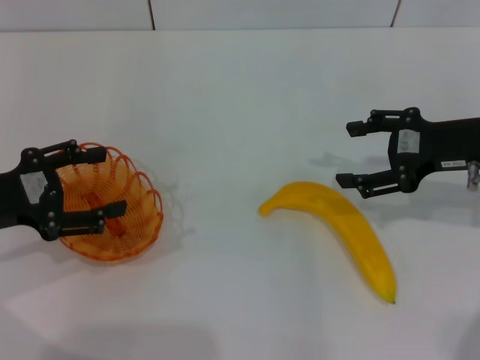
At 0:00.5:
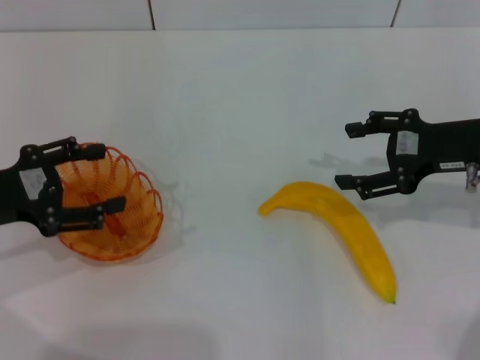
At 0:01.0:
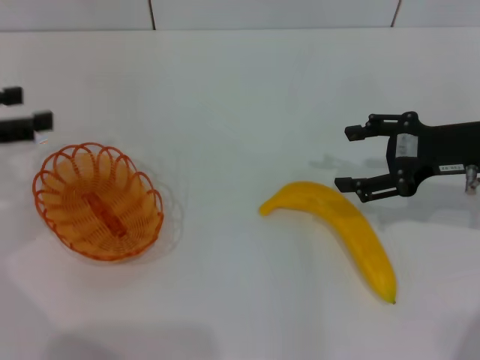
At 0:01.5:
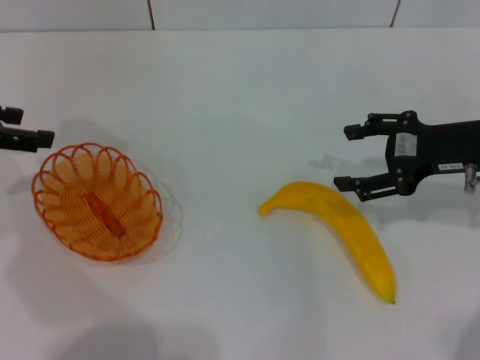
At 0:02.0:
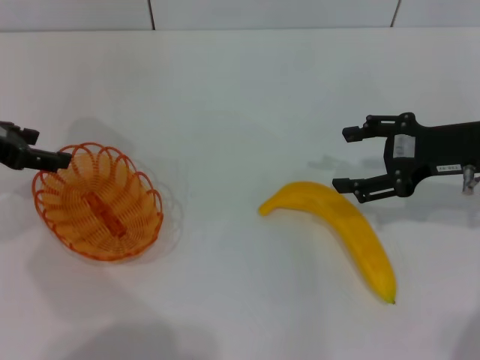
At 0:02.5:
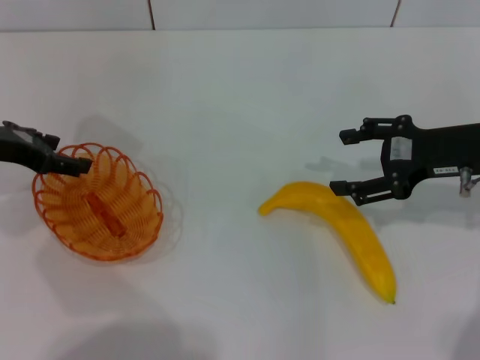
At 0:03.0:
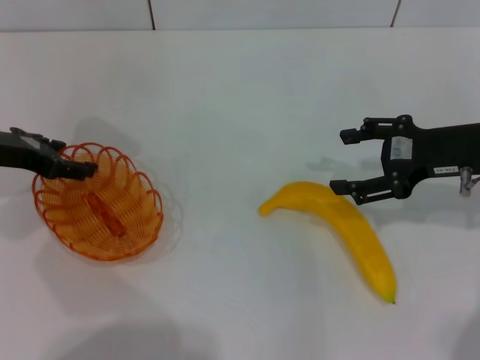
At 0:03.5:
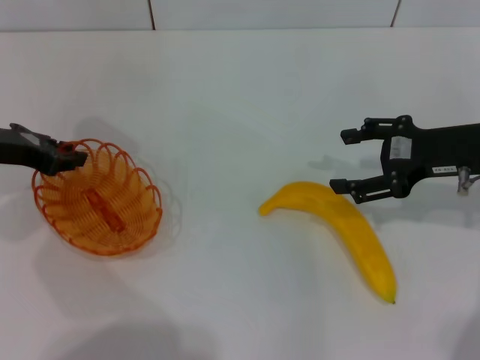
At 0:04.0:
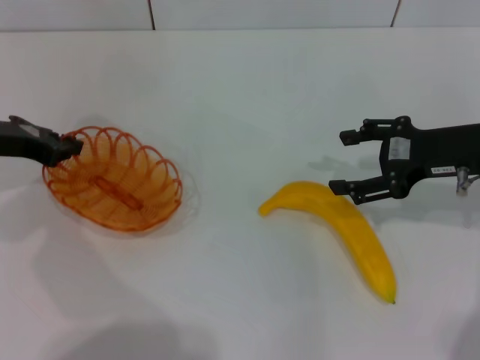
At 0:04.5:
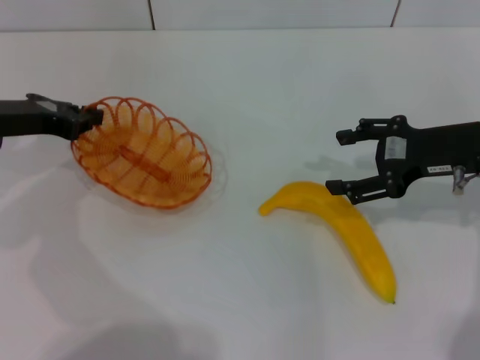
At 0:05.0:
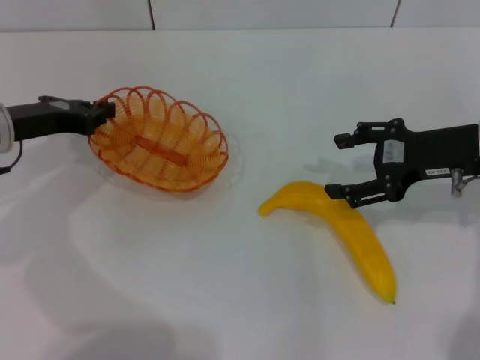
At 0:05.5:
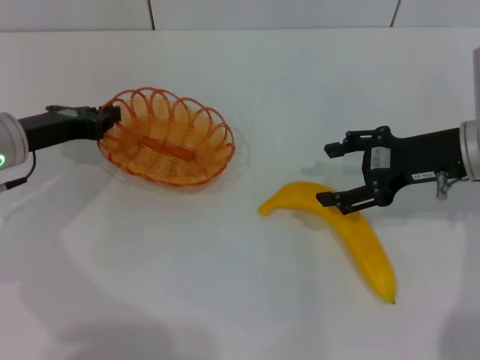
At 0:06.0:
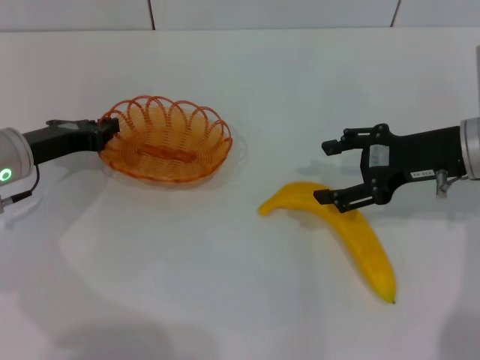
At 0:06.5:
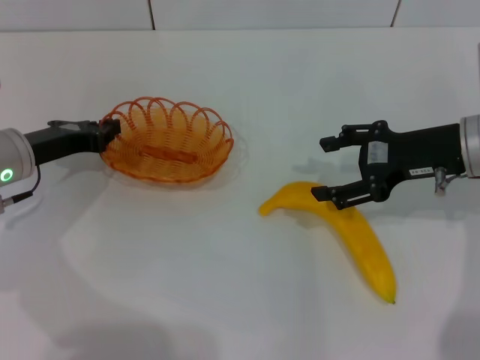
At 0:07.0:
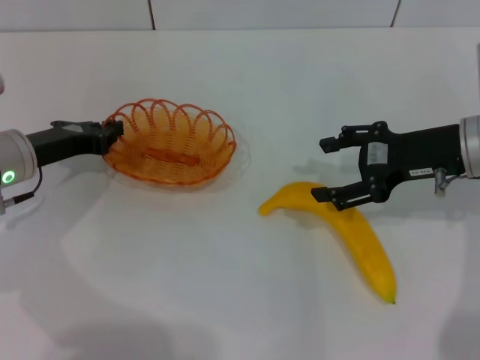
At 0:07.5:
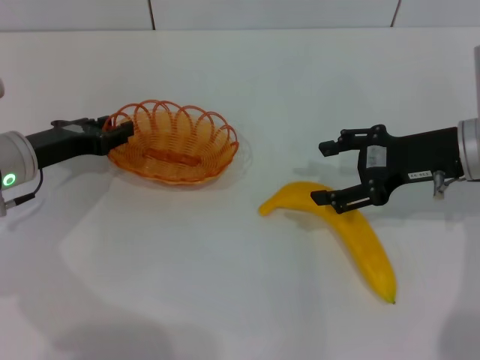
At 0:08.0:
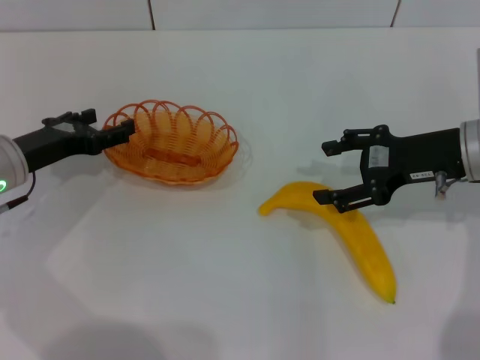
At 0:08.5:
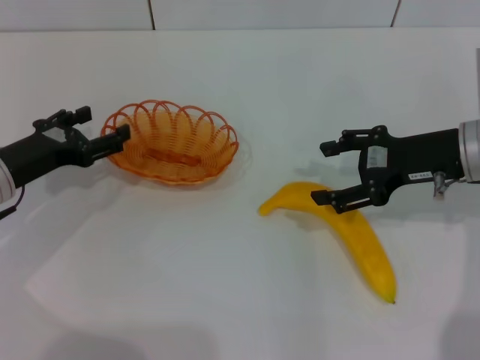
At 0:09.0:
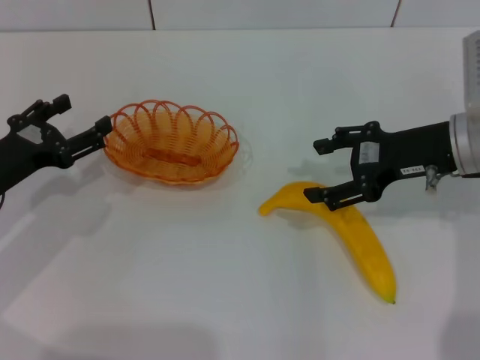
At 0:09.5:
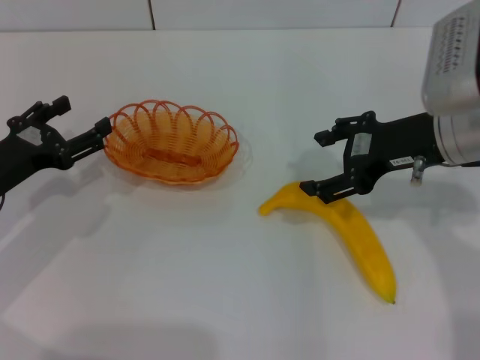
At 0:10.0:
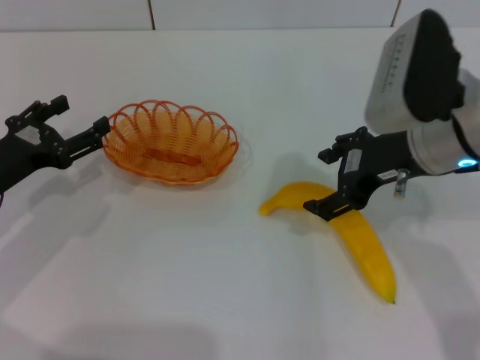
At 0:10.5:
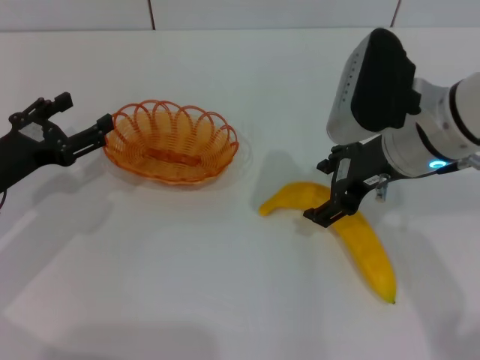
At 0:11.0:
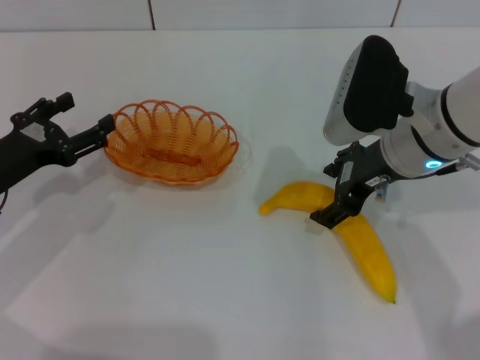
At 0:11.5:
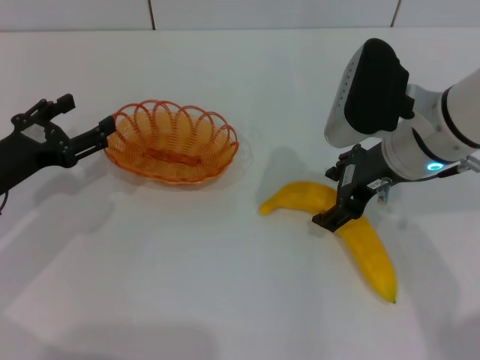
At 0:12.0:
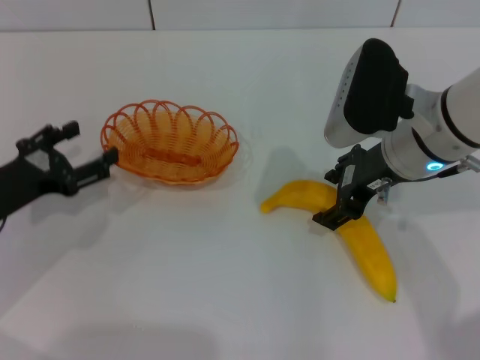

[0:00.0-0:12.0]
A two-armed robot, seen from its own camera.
Step, 0:00.0 to 0:04.0: Pick up the basket with the left gripper.
Step, 0:04.5 to 0:08.0: Place the basket in the center of view with the left gripper.
0:00.0 to 0:02.0: The left gripper is displaced forward by approximately 10 cm.
0:02.0 to 0:04.0: The left gripper closes up.
0:04.0 to 0:06.0: The left gripper moves downward, approximately 5 cm.
0:06.0 to 0:08.0: The left gripper opens its fingers.
0:08.0 to 0:10.0: The left gripper shifts by approximately 5 cm. The right gripper travels to the left by some 10 cm.
0:10.0 to 0:12.0: The grippers make only small movements.

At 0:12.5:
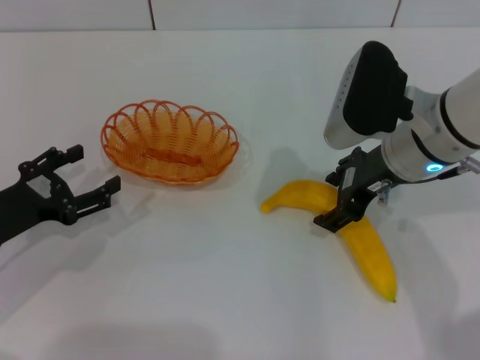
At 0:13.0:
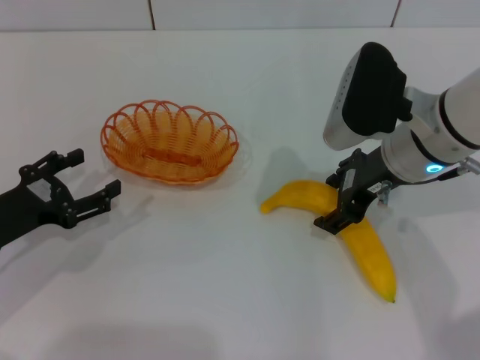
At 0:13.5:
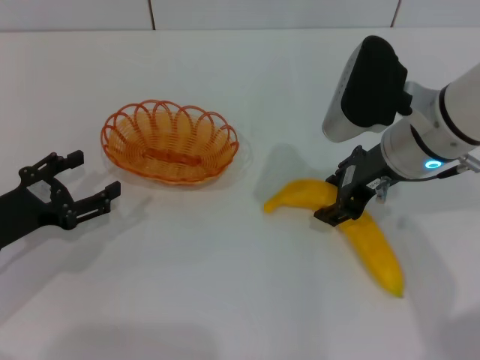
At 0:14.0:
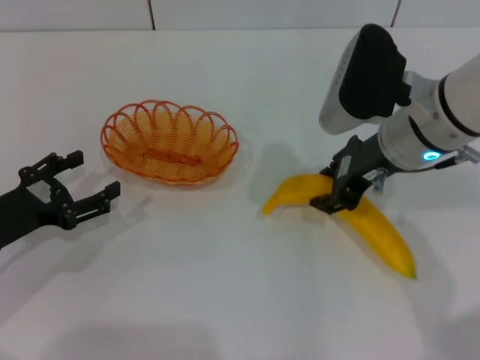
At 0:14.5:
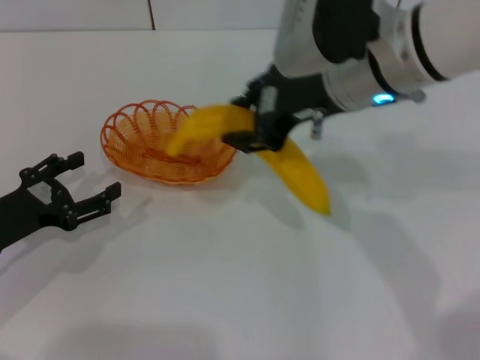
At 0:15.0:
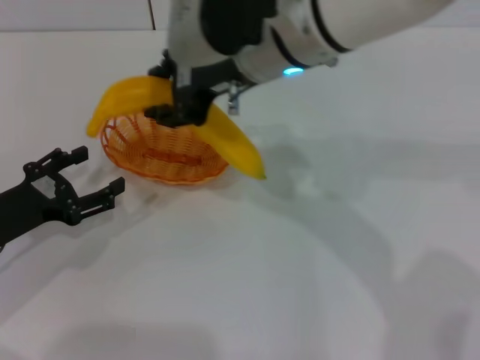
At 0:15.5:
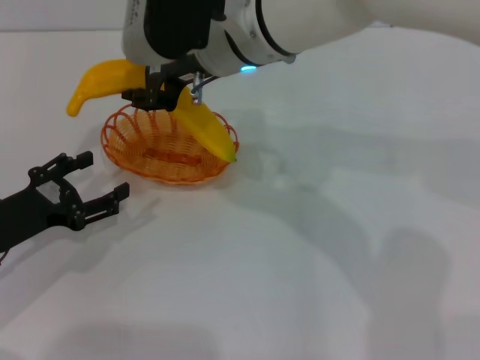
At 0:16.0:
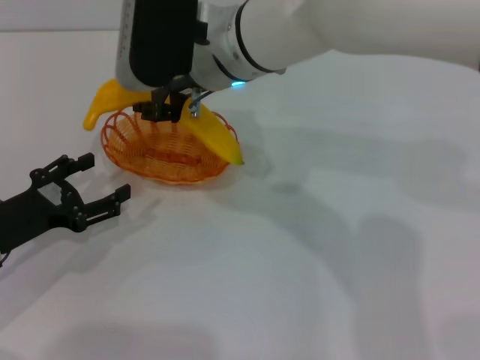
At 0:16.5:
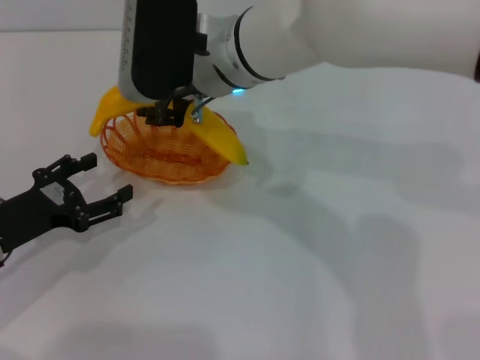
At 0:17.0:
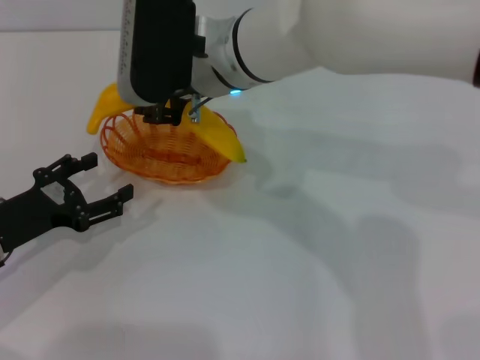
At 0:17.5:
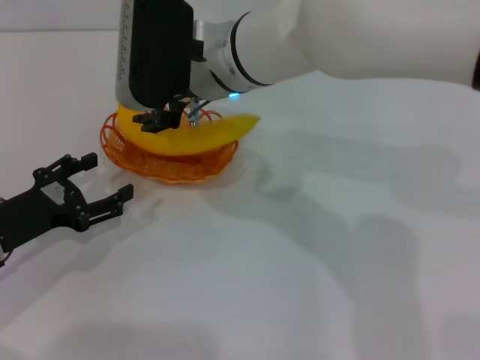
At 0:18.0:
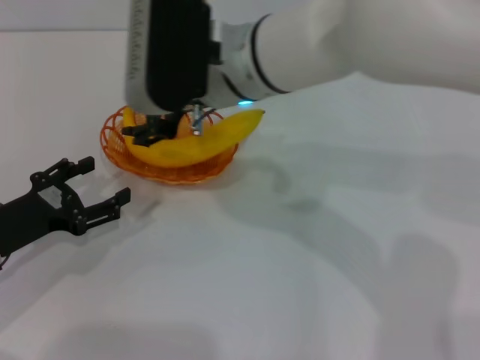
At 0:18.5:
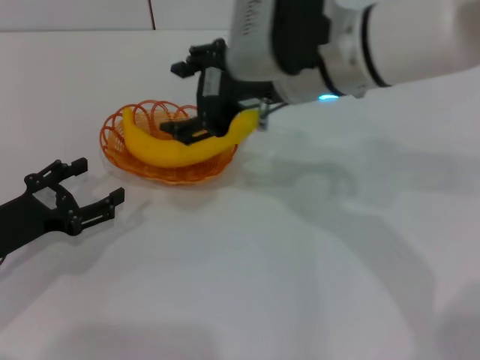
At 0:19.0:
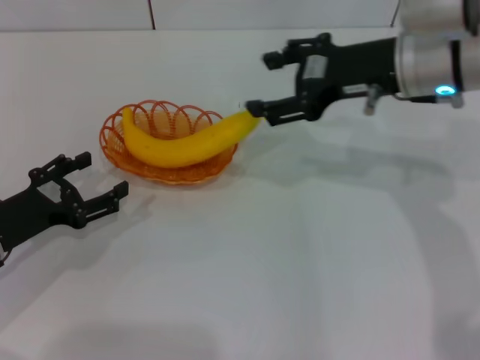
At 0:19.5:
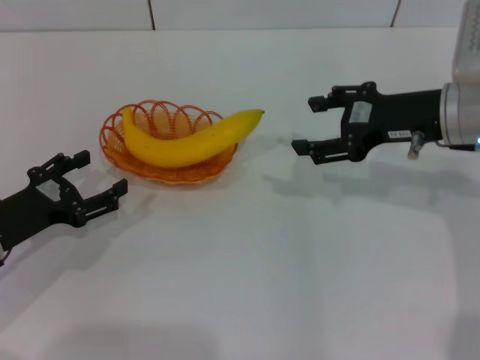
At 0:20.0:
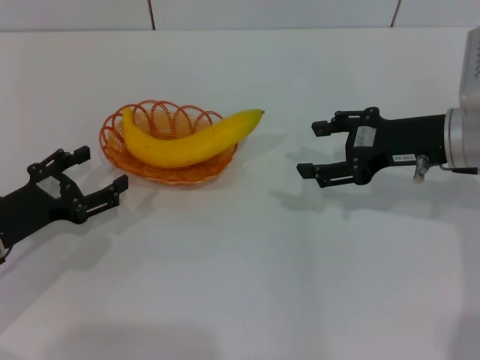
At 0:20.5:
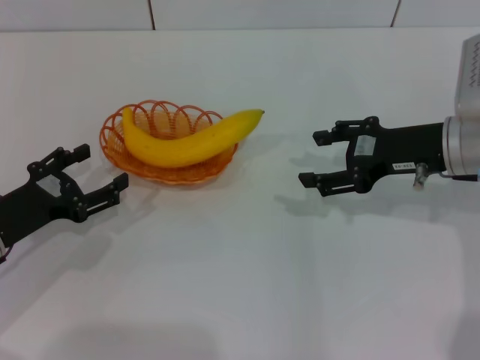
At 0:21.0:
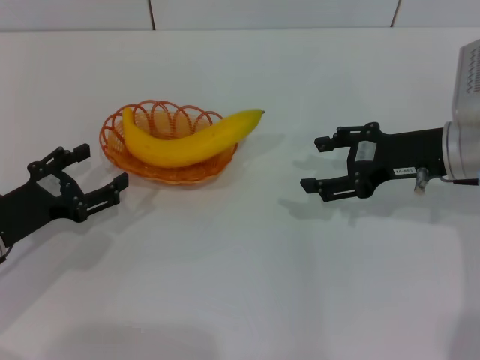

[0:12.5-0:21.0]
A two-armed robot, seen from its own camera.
Step, 0:14.5 to 0:17.5: Place the banana into the basket with the right gripper.
0:12.5 to 0:14.5: The right gripper travels upward and to the left by some 10 cm, and closes its fingers.
0:14.5 to 0:16.5: The right gripper goes approximately 10 cm to the left.
0:16.5 to 0:19.0: The right gripper moves to the right, some 20 cm, and opens its fingers.
0:19.0 to 0:21.0: The right gripper travels downward and to the right by roughly 10 cm.
